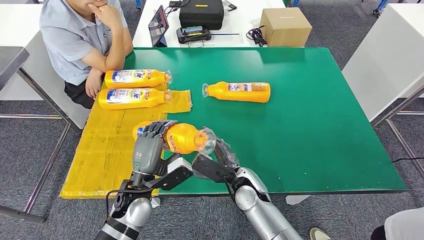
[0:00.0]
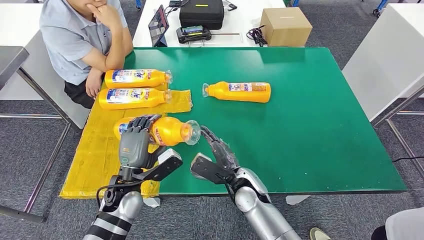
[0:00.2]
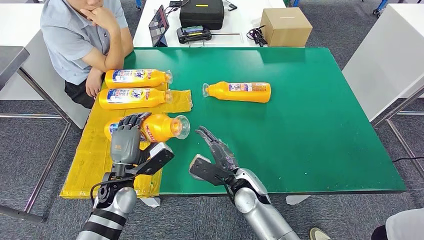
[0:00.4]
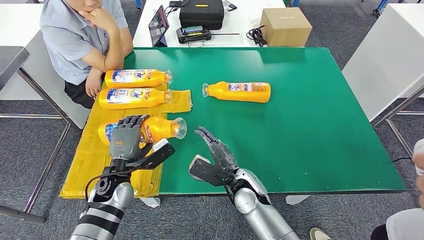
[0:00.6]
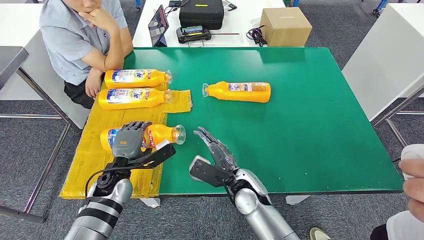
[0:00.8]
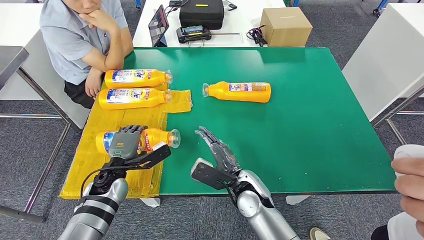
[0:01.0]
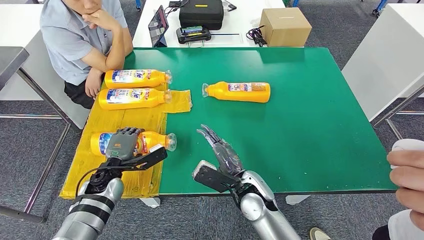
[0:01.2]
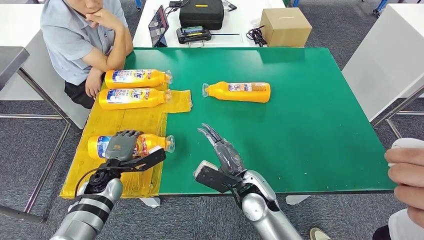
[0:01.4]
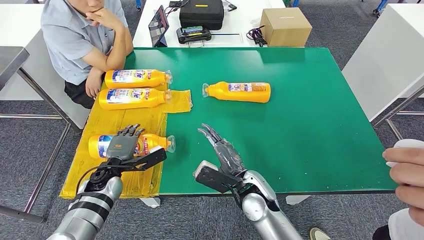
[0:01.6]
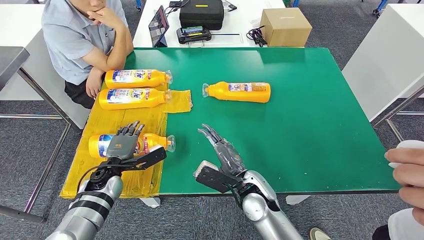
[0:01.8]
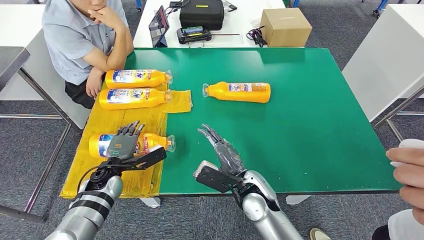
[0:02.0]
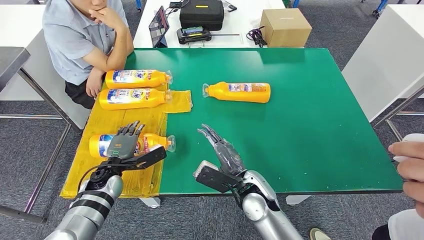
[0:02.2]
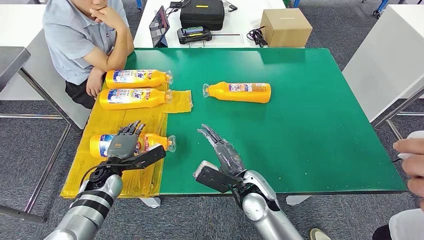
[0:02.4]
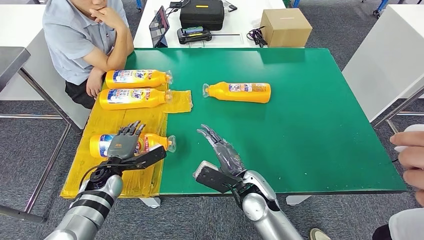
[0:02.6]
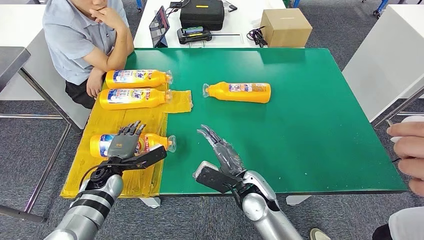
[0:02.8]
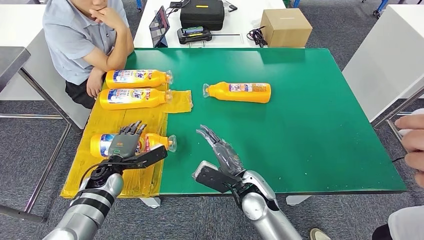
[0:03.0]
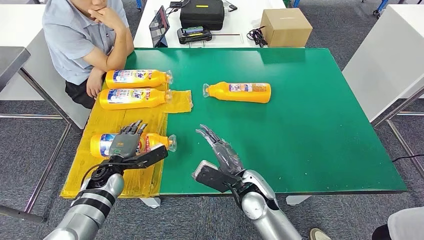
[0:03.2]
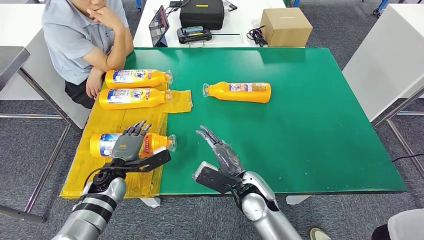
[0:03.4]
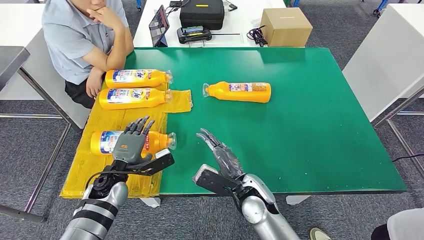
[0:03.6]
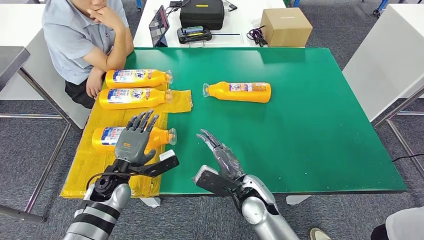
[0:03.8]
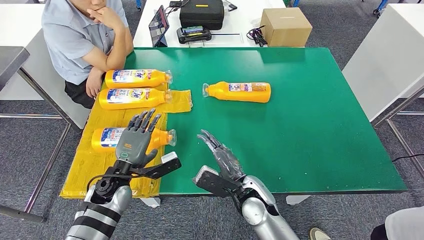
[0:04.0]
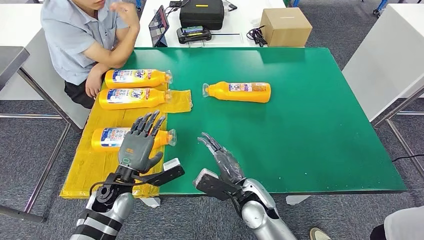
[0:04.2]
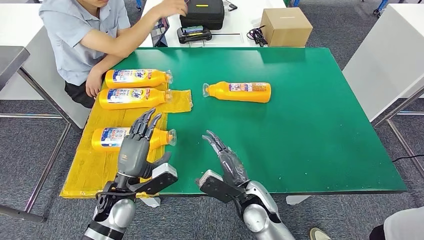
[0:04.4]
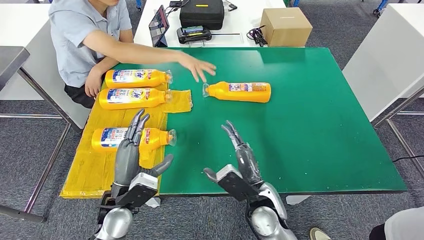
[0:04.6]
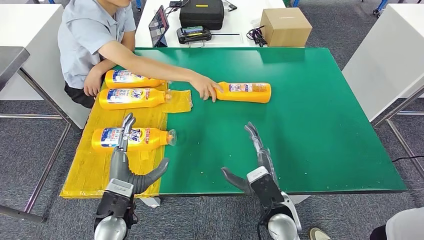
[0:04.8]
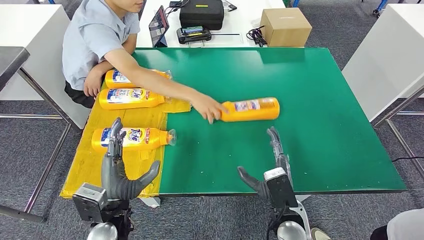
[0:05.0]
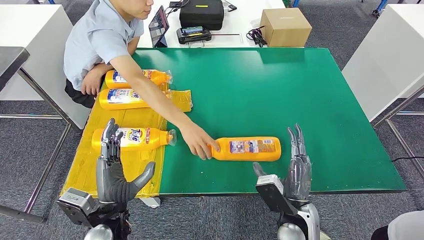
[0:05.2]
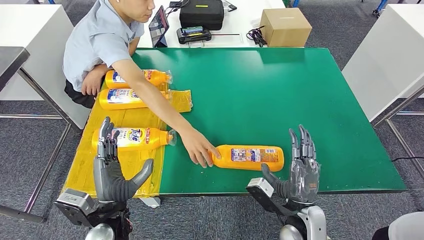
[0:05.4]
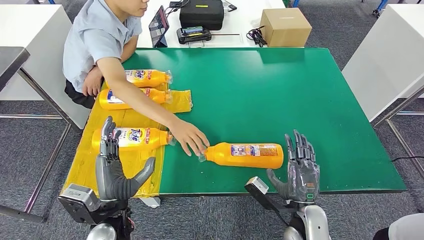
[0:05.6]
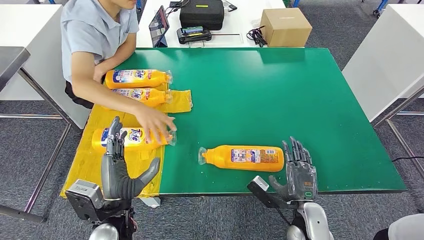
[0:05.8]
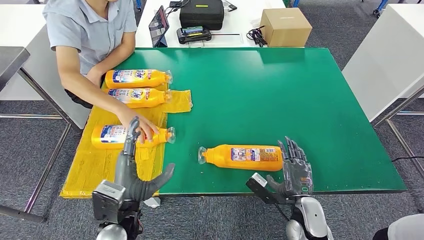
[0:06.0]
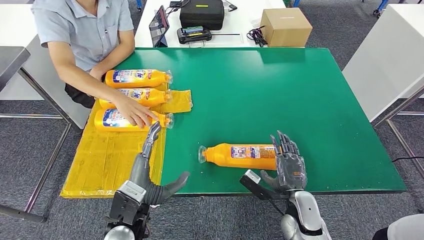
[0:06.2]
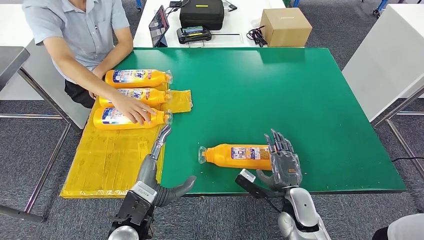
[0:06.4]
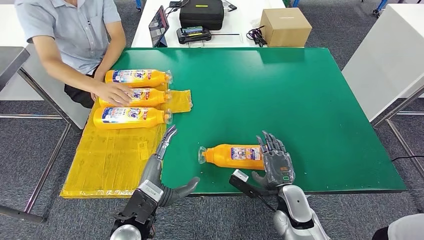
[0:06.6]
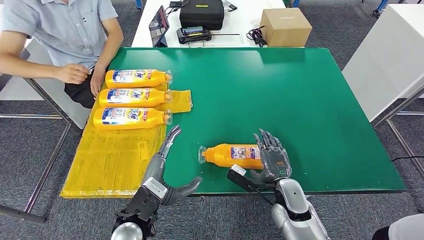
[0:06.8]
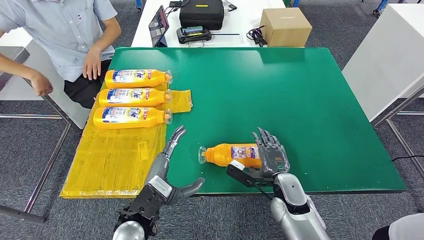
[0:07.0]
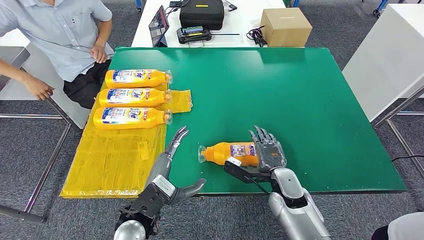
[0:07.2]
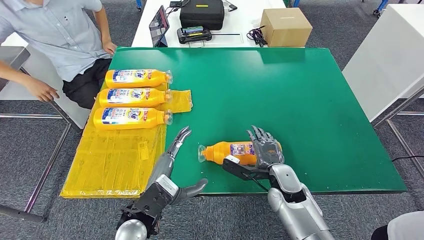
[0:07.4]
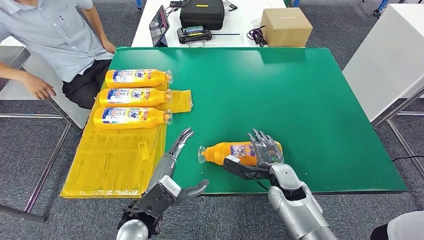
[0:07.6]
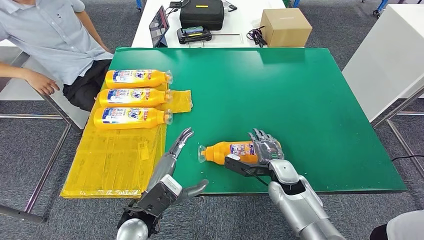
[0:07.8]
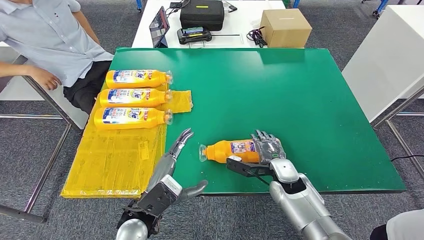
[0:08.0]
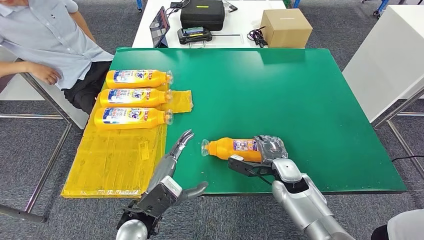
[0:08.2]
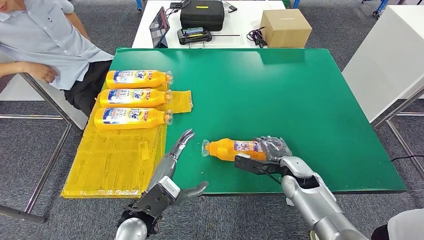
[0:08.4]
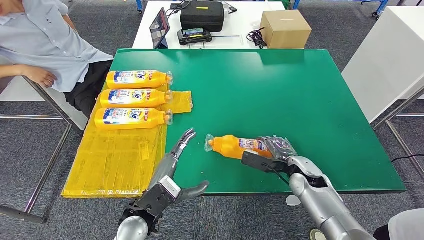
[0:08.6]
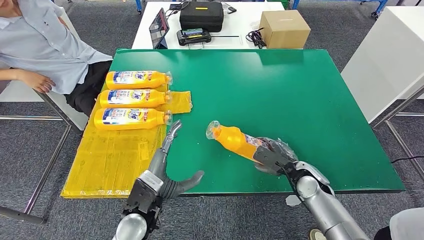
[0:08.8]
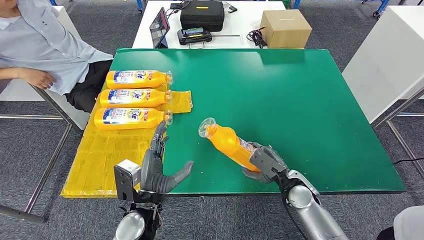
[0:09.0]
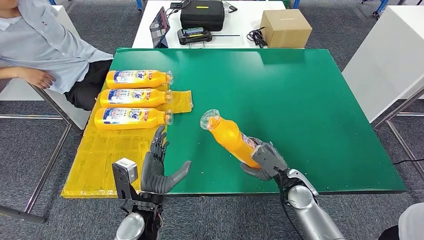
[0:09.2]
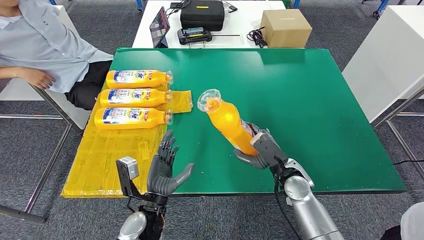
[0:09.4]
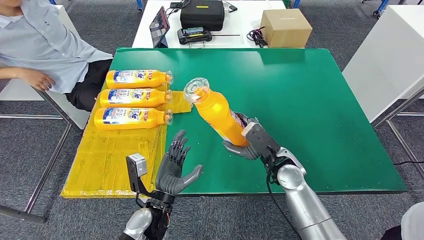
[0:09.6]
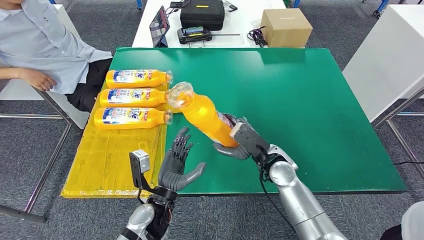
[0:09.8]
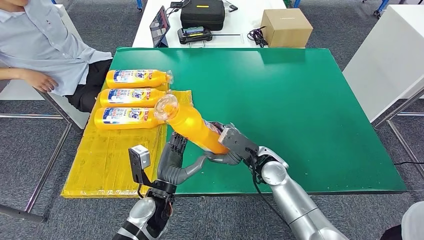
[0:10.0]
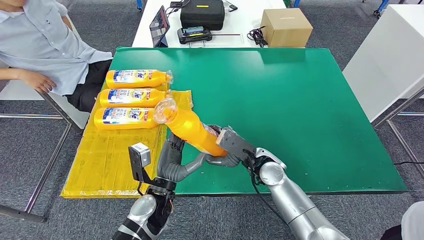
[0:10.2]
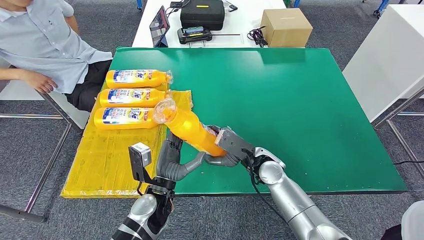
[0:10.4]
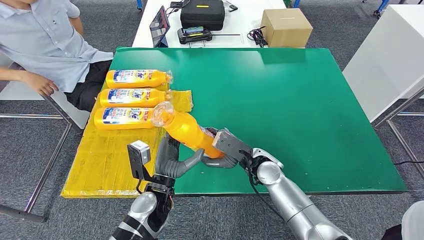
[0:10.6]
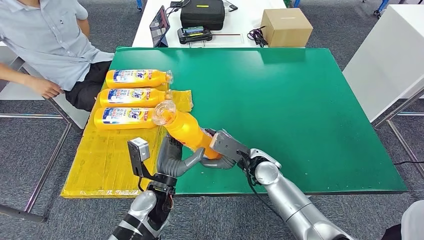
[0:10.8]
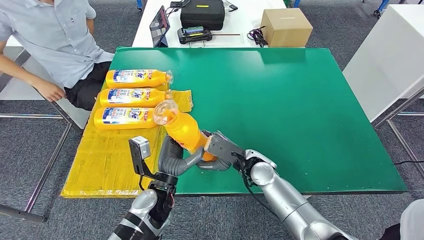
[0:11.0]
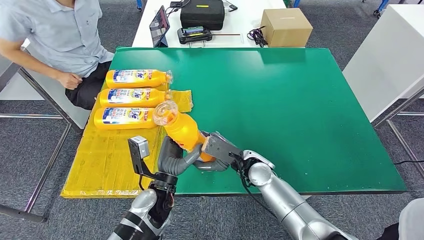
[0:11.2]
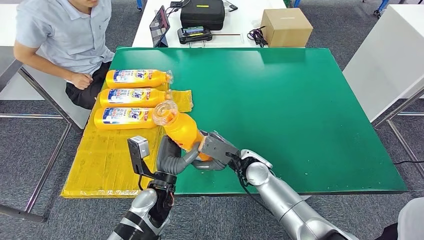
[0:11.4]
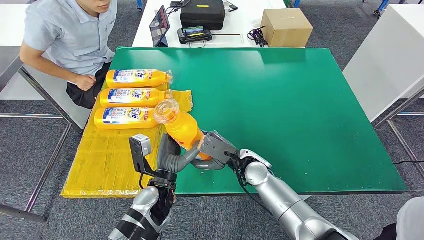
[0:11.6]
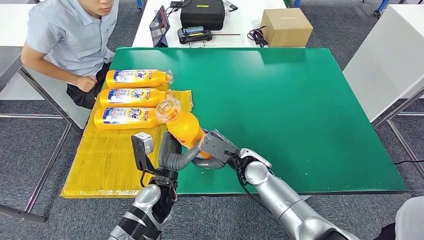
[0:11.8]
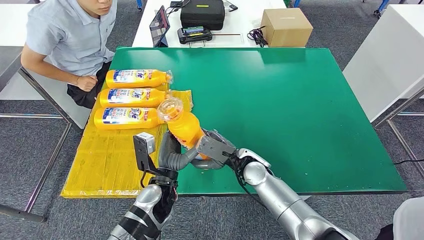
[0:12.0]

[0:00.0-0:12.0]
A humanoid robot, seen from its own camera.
Step, 0:00.0 to 0:02.0: Flip the fast-moving consumer goods bottle to the front side.
Step, 0:02.2 to 0:09.4: Pick up the fast-moving consumer goods bottle from the table.
0:00.0 to 0:01.6: The left hand travels to the left, forward and downward by approximately 15 cm.
0:01.6 to 0:03.0: The hands make only small movements.
0:03.0 to 0:04.4: The left hand shifts about 10 cm backward, to the right and upward.
0:07.6 to 0:09.0: The right hand changes place by roughly 5 cm.
0:09.0 to 0:10.4: The right hand travels to the left and upward by about 10 cm.
0:10.4 to 0:12.0: There are only small adjustments of the hands.

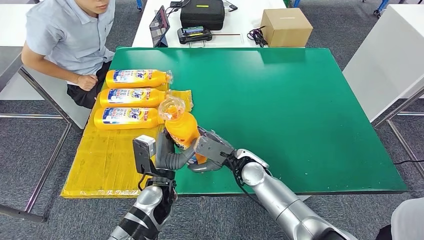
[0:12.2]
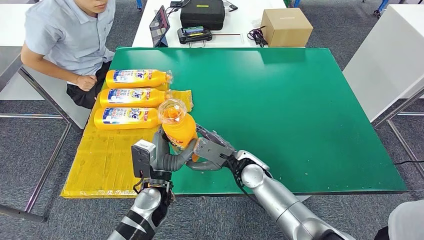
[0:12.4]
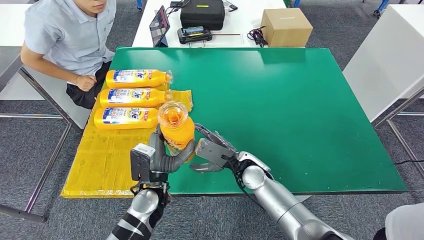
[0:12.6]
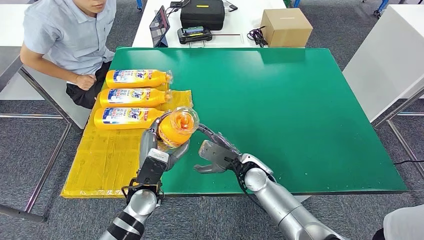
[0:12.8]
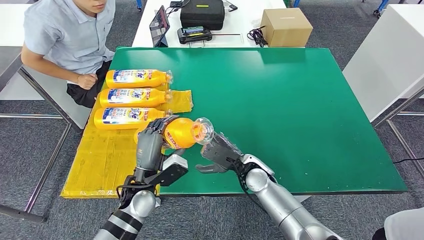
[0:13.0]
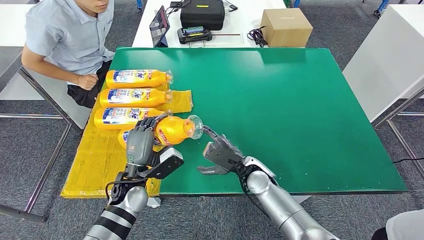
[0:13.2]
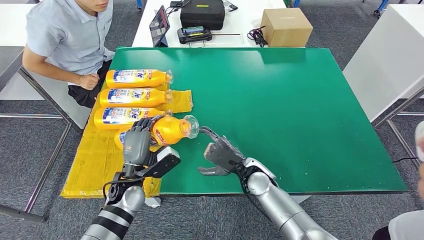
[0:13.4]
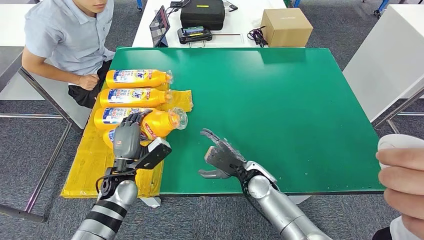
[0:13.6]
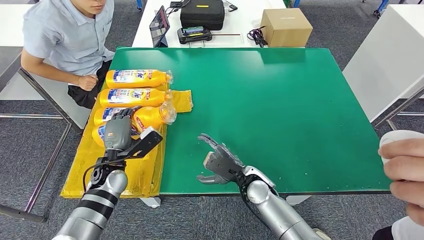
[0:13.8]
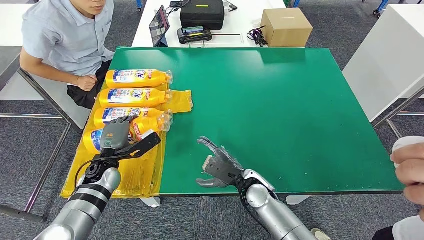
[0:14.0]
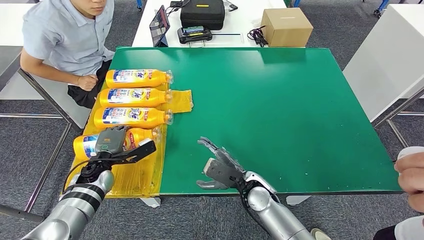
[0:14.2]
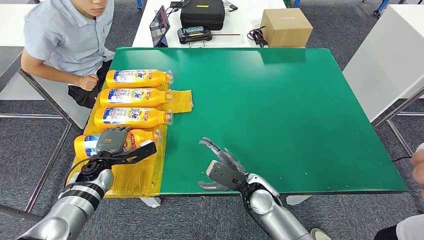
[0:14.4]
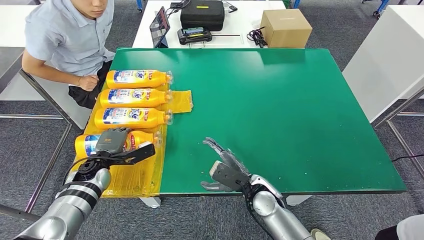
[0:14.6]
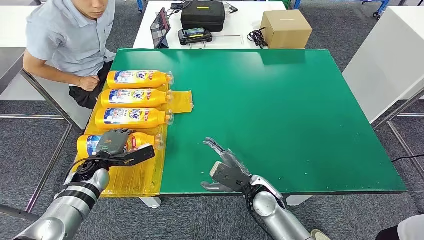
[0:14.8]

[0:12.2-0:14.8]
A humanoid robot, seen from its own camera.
Step, 0:12.2 to 0:14.6: Flip the fast-moving consumer goods bottle to the front side.
0:12.2 to 0:13.4: The left hand travels to the left by approximately 10 cm.
